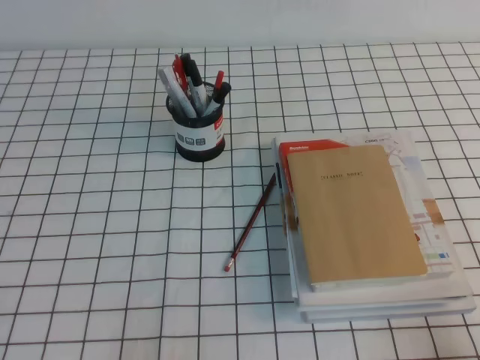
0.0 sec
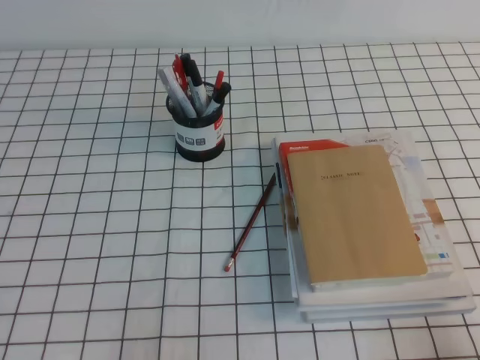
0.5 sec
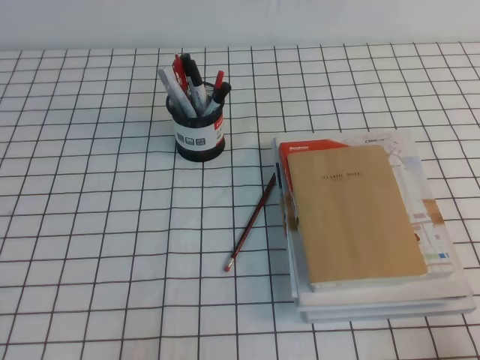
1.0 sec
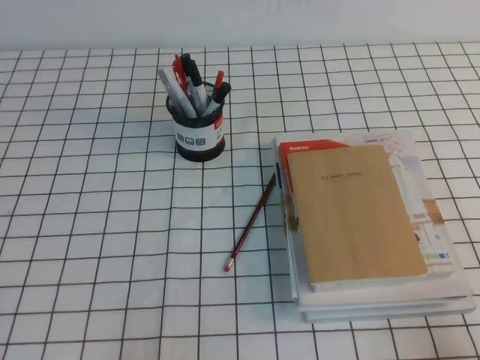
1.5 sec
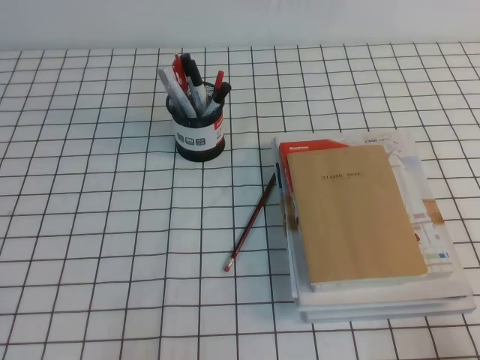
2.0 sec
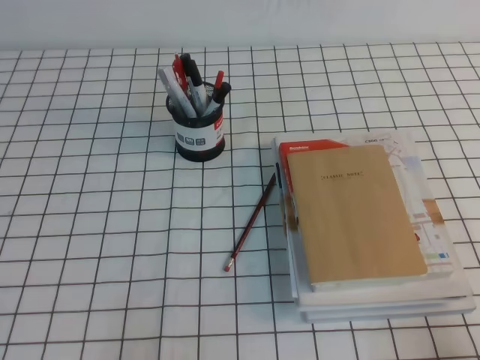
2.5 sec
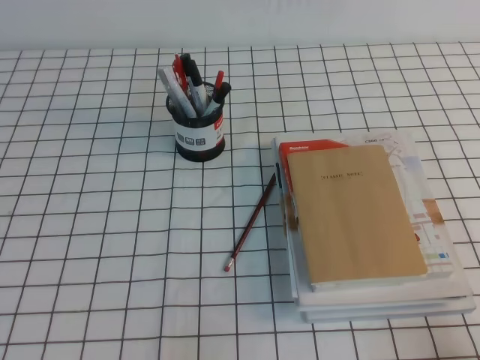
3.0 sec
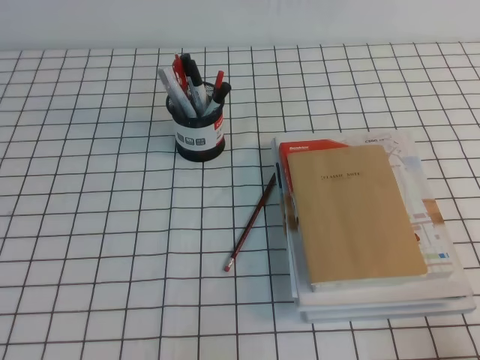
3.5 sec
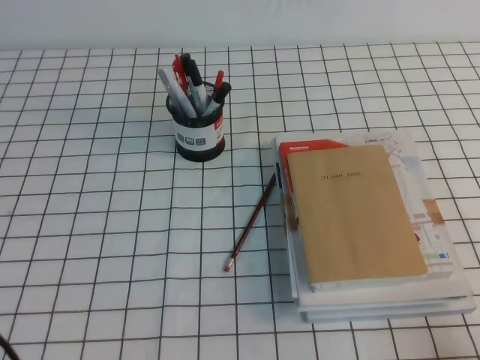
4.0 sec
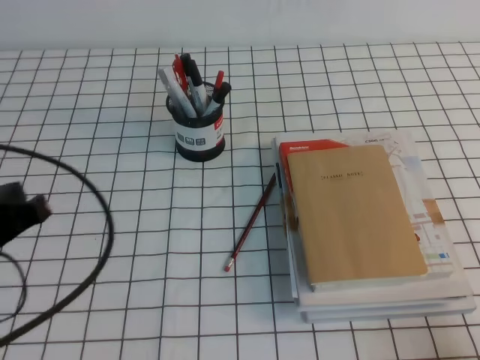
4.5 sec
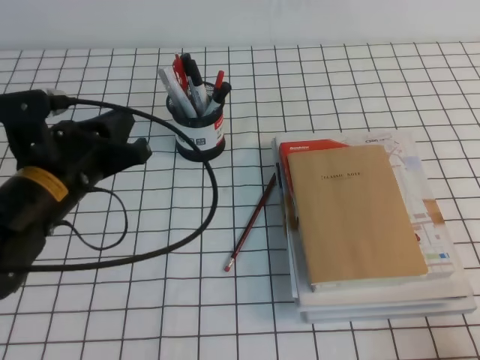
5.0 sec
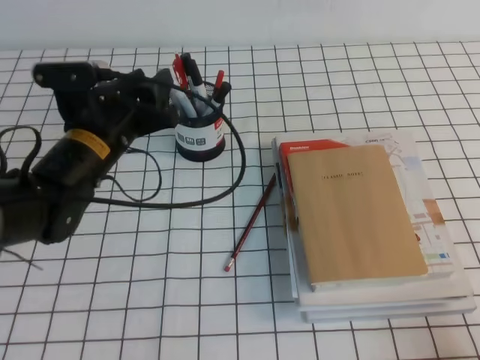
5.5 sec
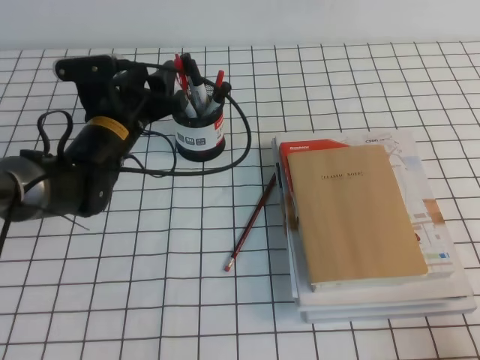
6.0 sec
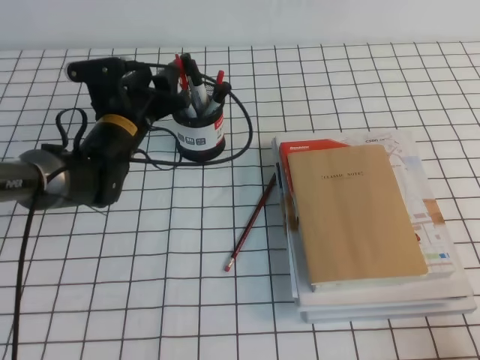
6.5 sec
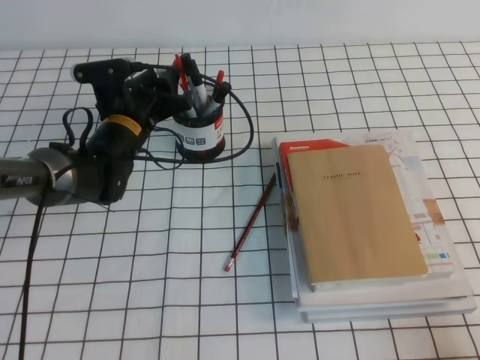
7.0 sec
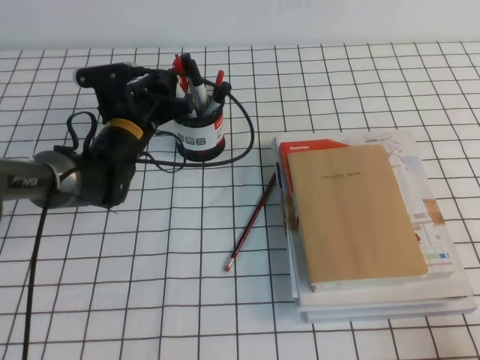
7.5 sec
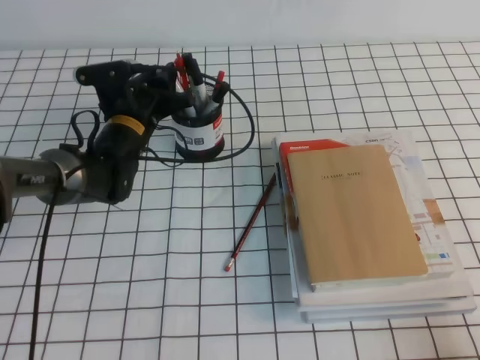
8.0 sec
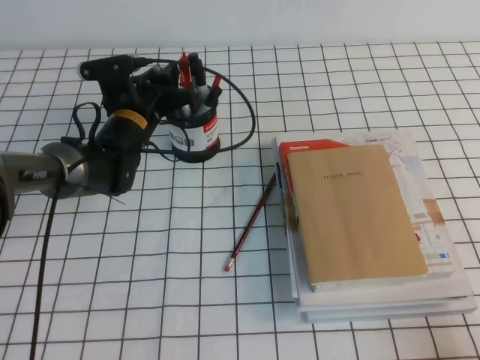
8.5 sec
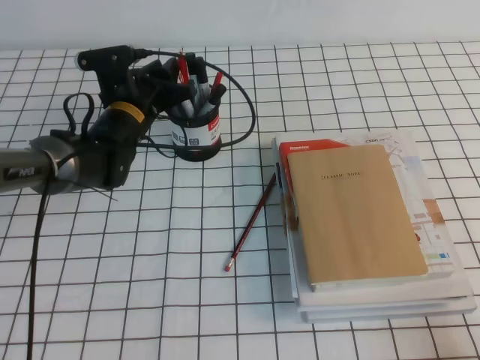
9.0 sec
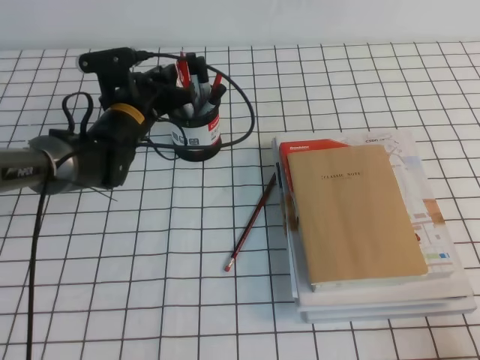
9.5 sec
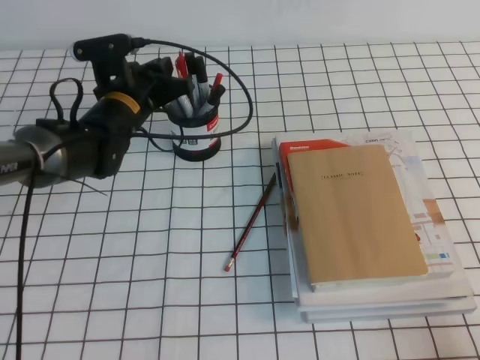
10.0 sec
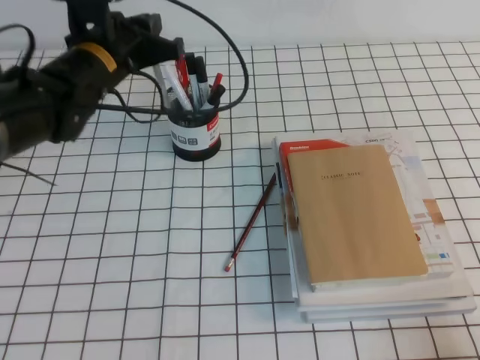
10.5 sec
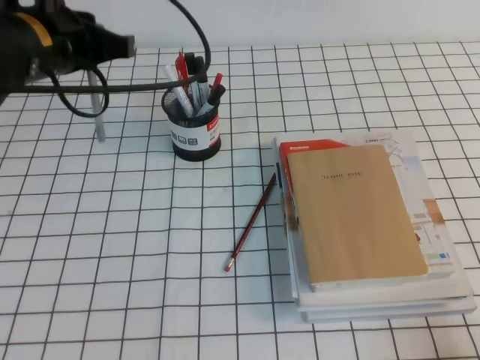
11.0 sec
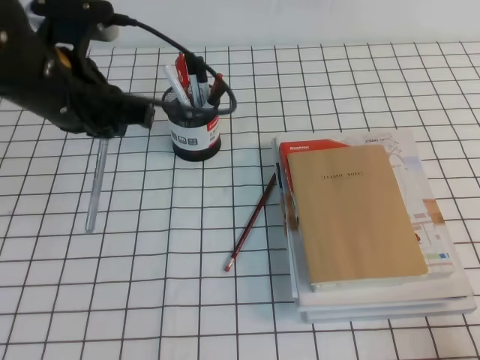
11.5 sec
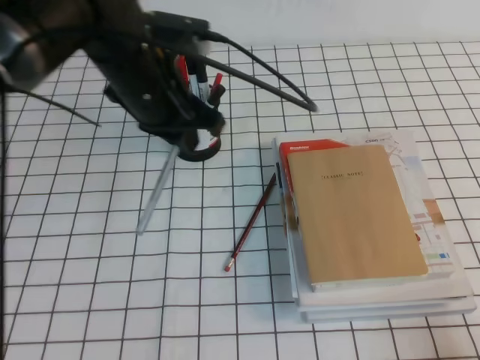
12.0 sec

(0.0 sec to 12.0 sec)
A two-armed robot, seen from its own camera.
0.0 sec - 2.0 sec: Both grippers stay about where they are.
4.0 sec - 6.0 sec: The left gripper is displaced forward and to the right by about 35 cm, and opens.
6.0 sec - 8.0 sec: The left gripper moves forward, some 5 cm, and closes up.
8.0 sec - 10.0 sec: The left gripper closes its fingers.
10.0 sec - 12.0 sec: The left gripper heads upward and backward, covering approximately 15 cm.

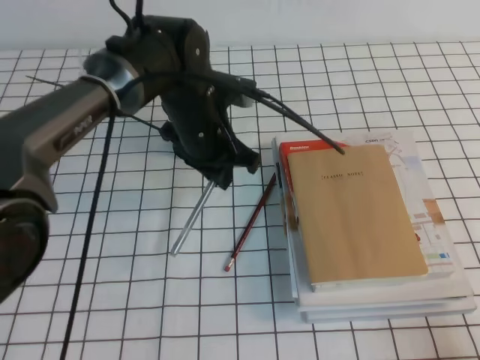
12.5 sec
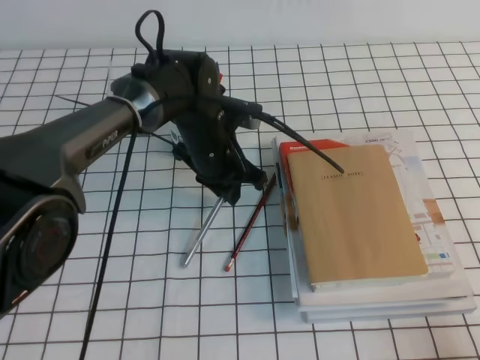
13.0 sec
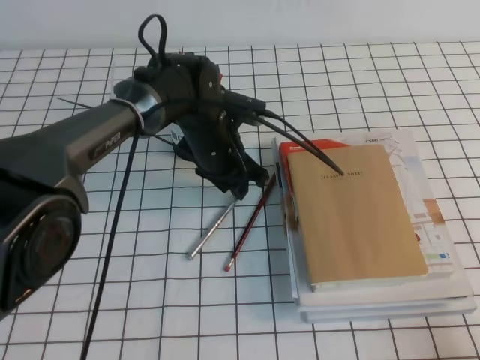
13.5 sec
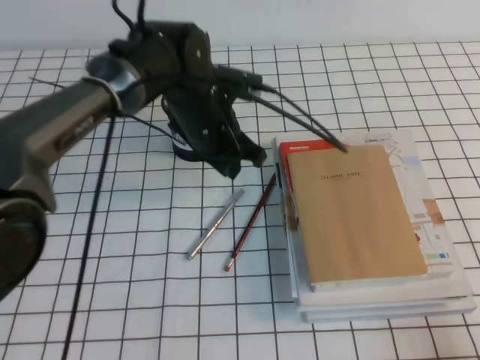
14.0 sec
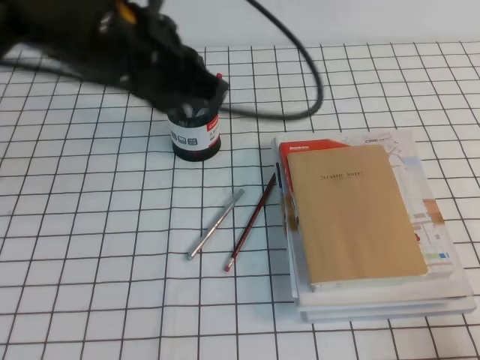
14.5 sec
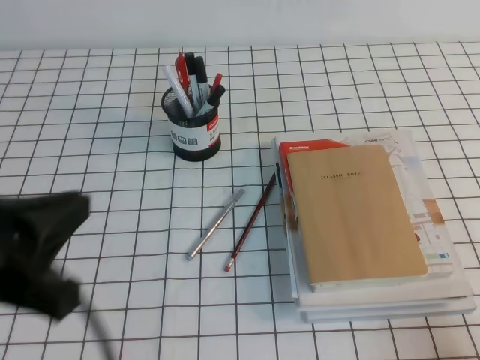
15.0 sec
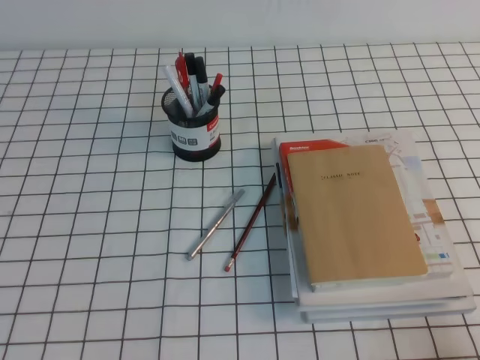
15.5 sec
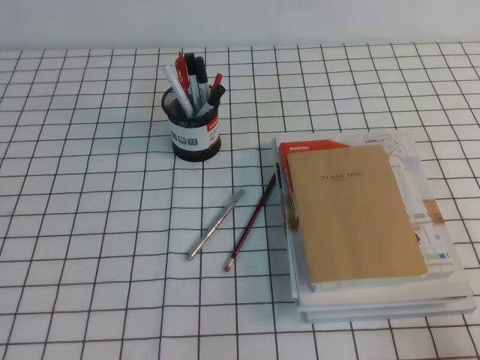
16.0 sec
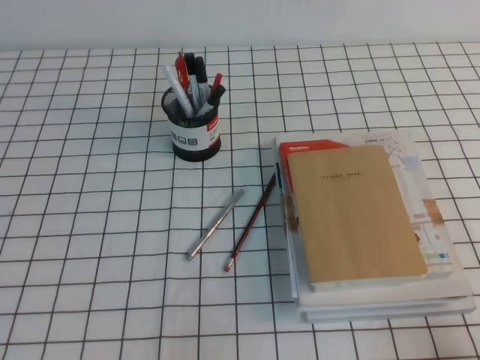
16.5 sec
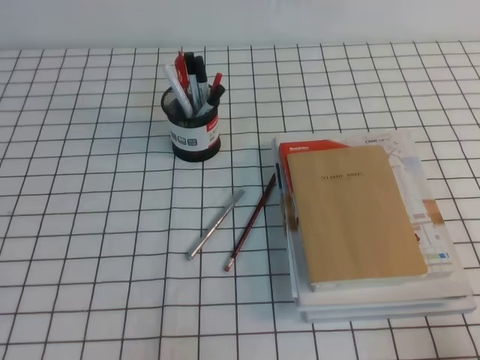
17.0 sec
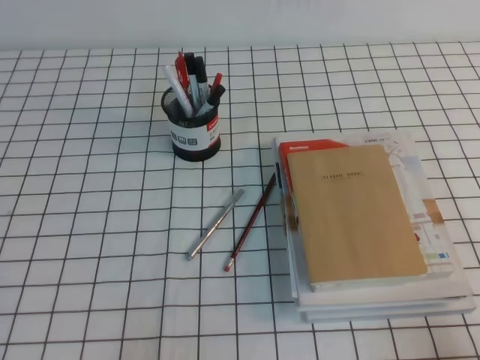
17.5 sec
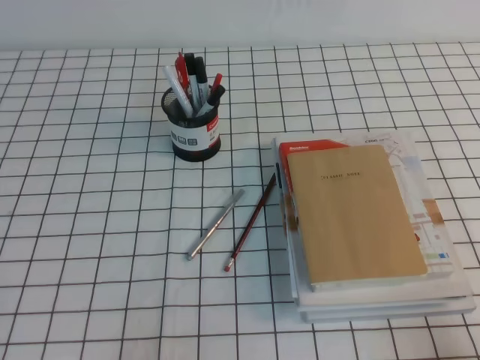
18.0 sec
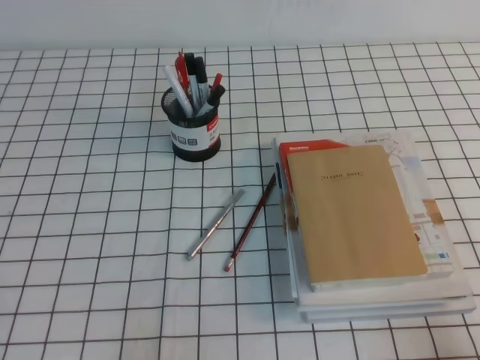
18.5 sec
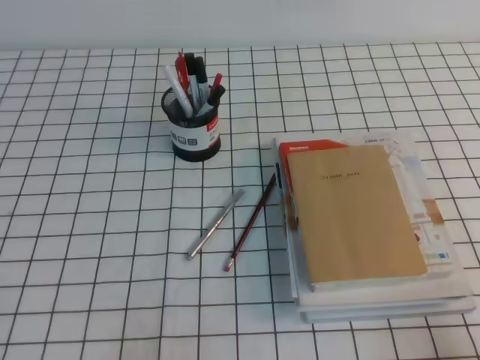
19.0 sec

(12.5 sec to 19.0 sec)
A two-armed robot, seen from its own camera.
Step, 12.5 sec - 19.0 sec: Pick up the pen from the pen holder.
12.5 sec - 14.5 sec: The left gripper shifts about 15 cm upward and backward, and opens, then closes once more.
14.5 sec - 17.0 sec: The left gripper heads backward, downward and to the left, covering about 35 cm.
